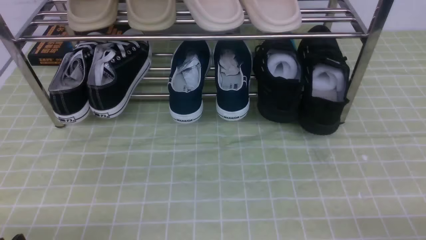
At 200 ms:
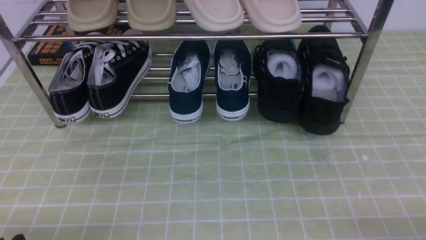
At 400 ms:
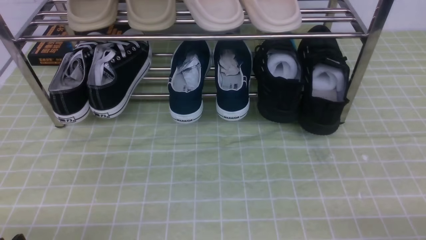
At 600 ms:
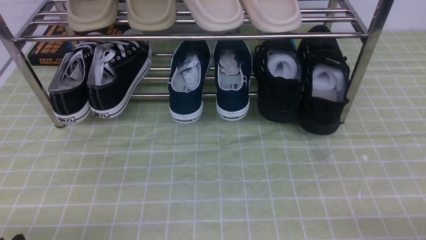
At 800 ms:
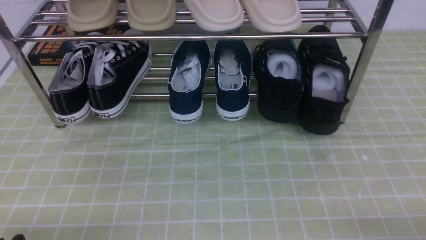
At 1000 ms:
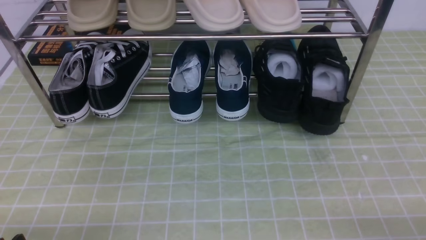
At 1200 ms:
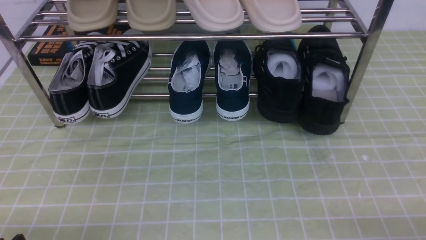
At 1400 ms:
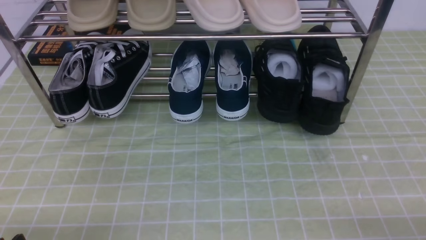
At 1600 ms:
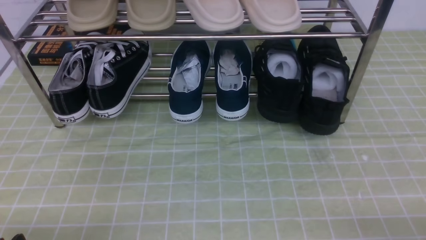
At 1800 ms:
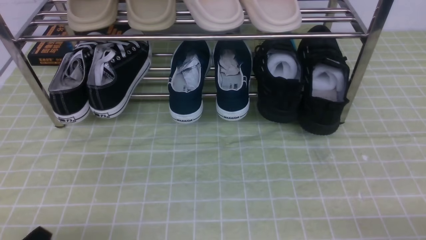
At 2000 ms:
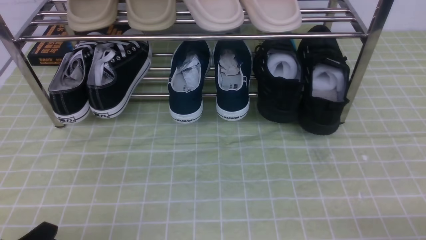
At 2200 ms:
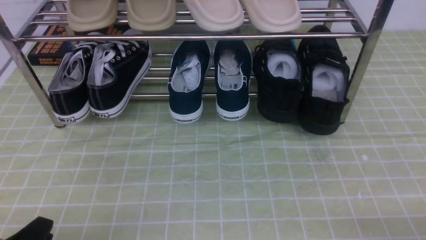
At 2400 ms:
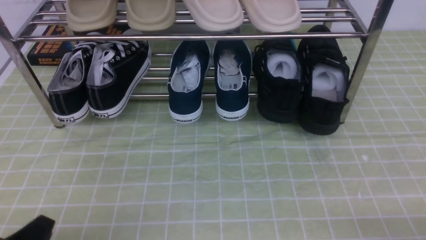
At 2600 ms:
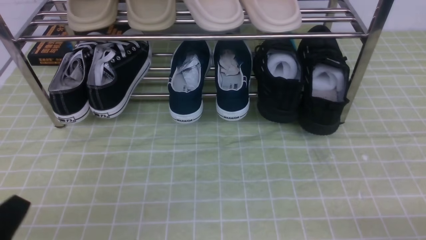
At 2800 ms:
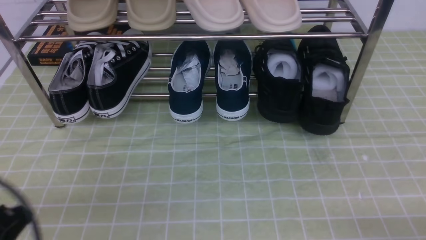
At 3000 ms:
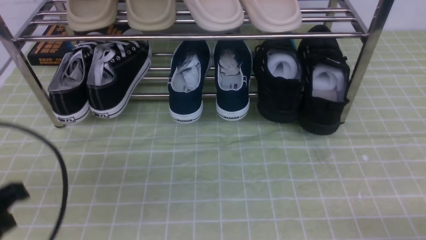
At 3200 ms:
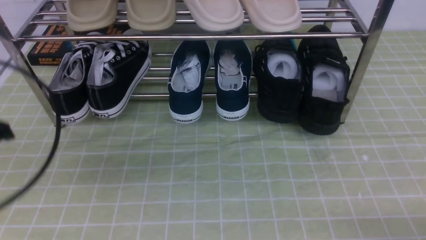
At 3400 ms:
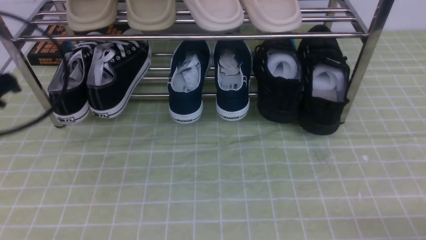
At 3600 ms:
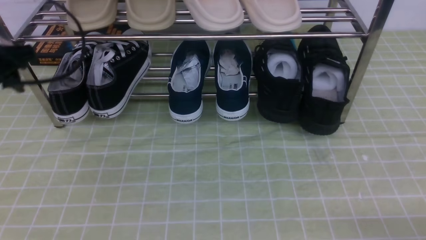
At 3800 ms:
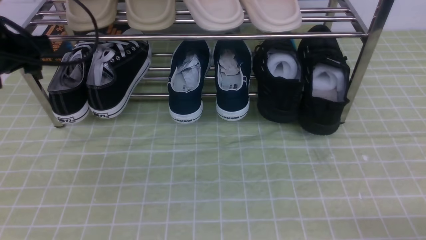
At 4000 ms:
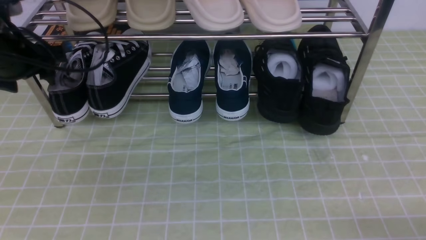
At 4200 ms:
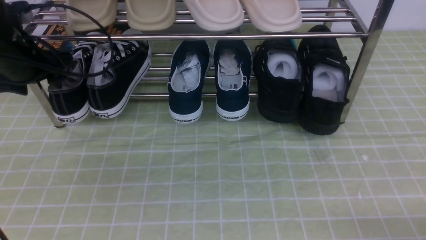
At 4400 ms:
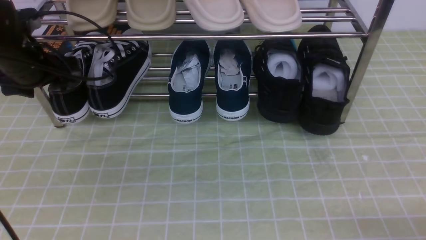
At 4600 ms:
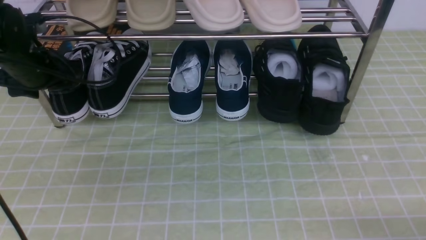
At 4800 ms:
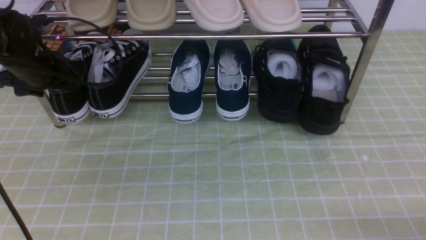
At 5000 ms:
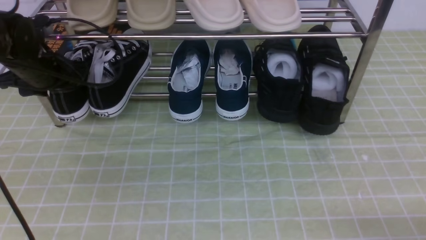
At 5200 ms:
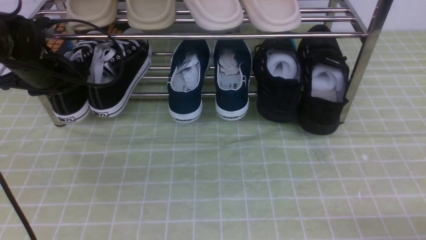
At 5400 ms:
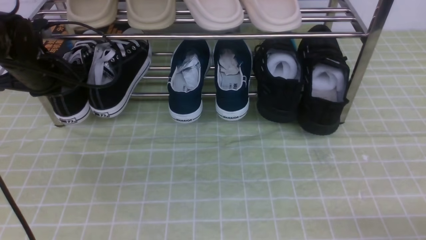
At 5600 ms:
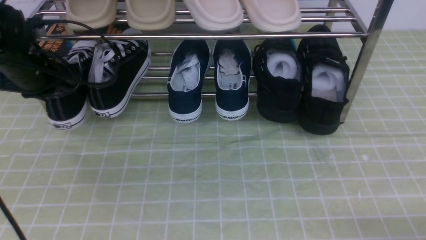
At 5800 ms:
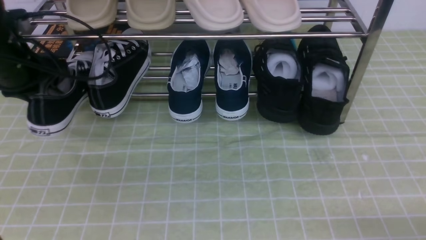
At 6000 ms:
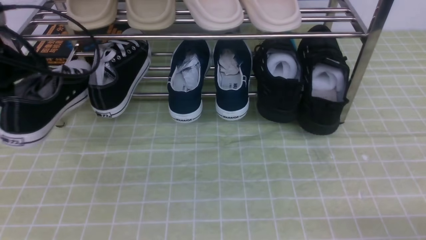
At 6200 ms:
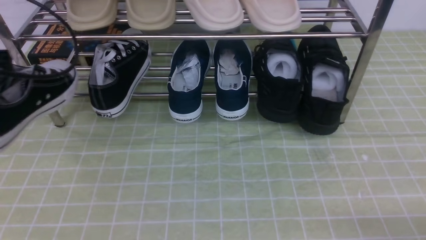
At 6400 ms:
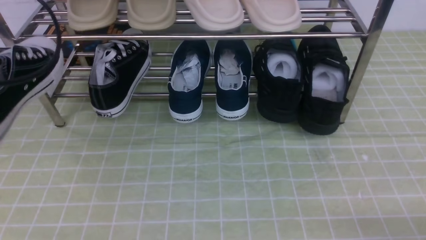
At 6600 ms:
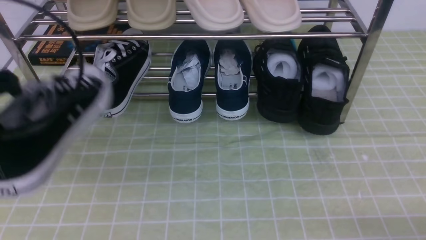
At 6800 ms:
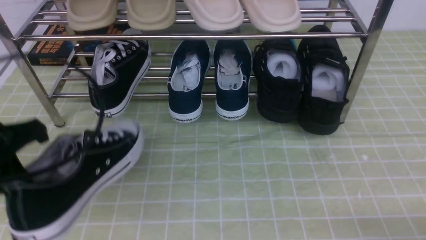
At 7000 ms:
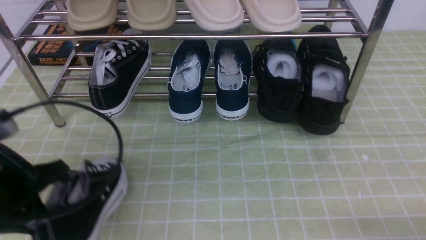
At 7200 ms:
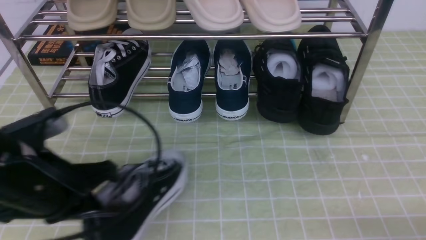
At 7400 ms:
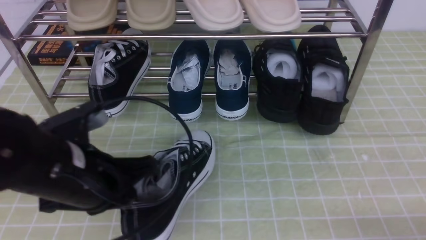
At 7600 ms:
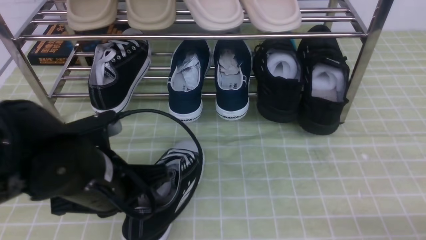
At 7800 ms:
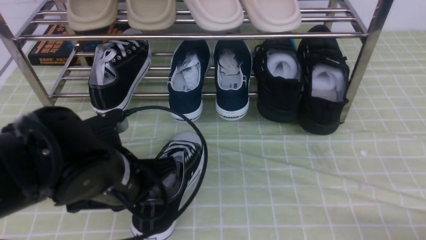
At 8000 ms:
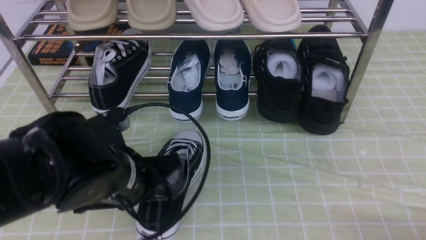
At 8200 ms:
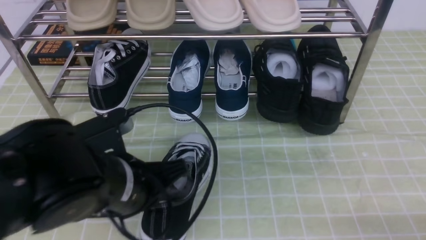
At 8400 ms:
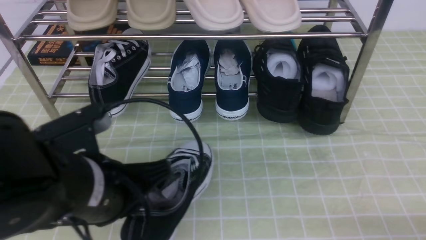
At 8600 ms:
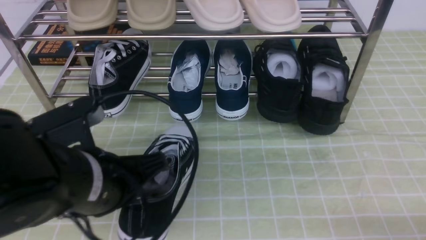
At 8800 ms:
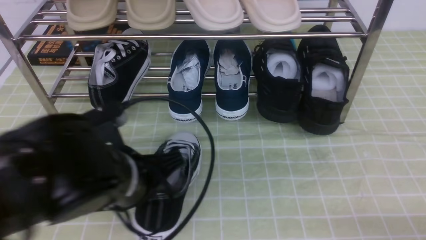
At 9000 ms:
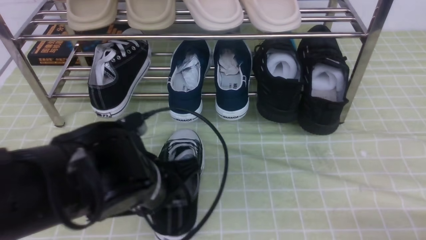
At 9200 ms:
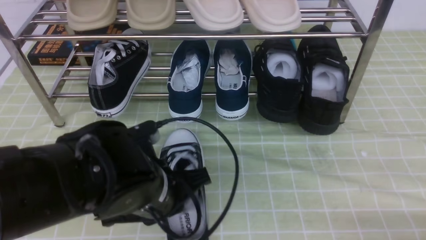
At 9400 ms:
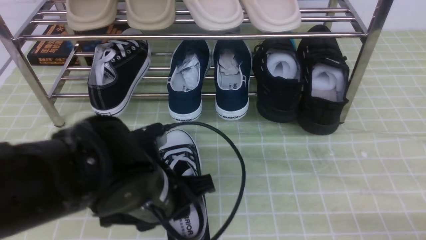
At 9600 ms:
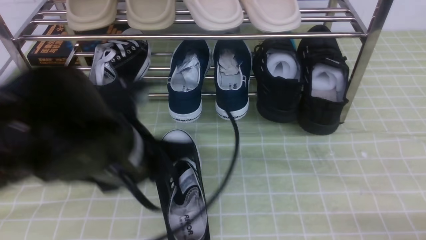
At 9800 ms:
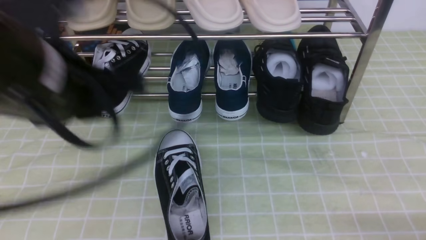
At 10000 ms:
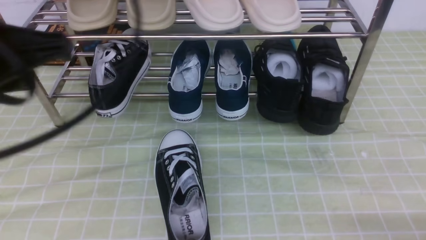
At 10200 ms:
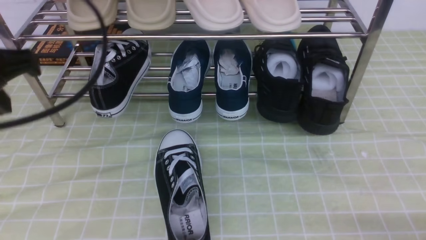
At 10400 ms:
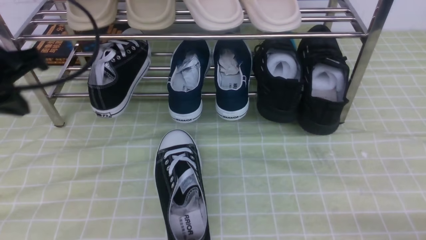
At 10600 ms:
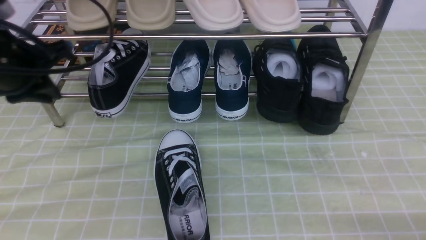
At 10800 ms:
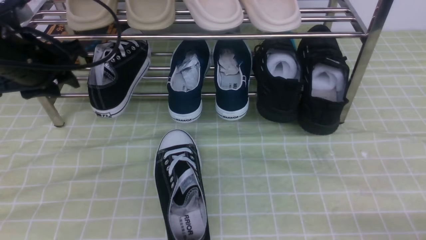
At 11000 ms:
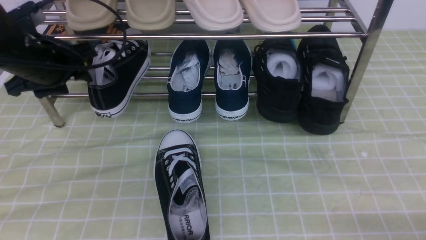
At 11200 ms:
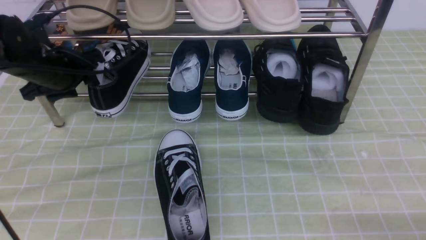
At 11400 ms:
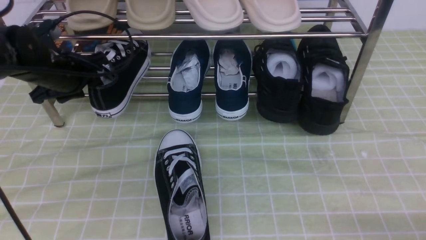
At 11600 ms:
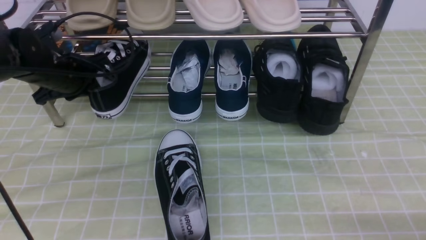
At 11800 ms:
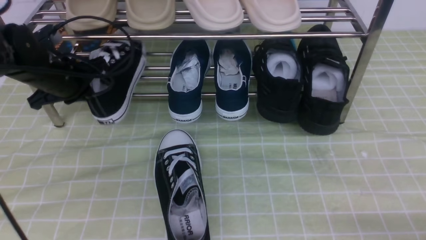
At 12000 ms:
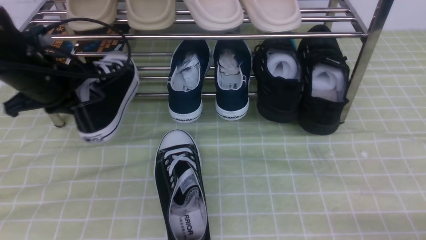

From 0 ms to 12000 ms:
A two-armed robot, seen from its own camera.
Step, from 0 ms to 5000 ms: use the left arm to clamp a shoe on the left side of the shoe rack.
Step, from 5200 ms to 9400 ms: Use your left arm to remove the clamped shoe from the shoe rack and put it down.
Step, from 9600 ms to 11800 ms: use the left arm to clamp a shoe on the left side of the shoe rack.
From 1600 ms to 3000 ms: The left gripper goes about 15 cm upward and forward, and closes up.
From 3000 ms to 4400 ms: The left gripper moves forward, roughly 25 cm, and opens its fingers.
From 4400 ms to 6000 ms: The left gripper is displaced backward and upward by approximately 10 cm, and closes.
From 6000 ms to 7600 ms: The left gripper heads to the right, backward and downward, covering approximately 20 cm.
From 7600 ms to 9000 ms: The left gripper shifts by about 5 cm.
From 9000 ms to 10400 ms: The left gripper shifts roughly 20 cm to the left, upward and forward, and opens, then closes again.
From 10400 ms to 12000 ms: The left gripper heads forward and downward, covering about 10 cm, and opens, then closes once more.

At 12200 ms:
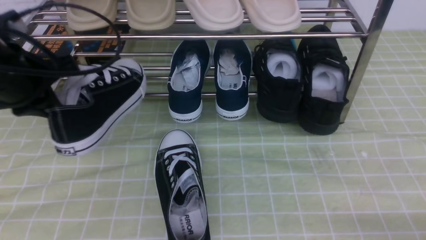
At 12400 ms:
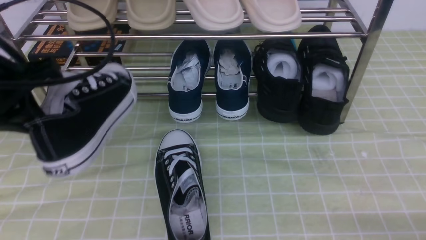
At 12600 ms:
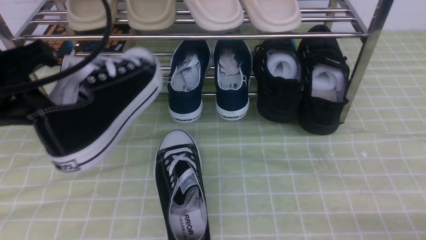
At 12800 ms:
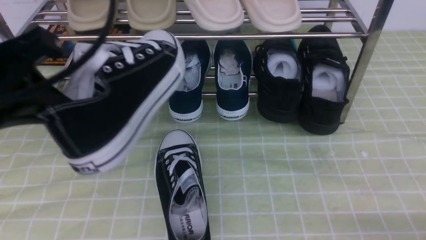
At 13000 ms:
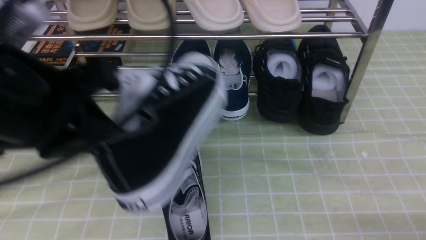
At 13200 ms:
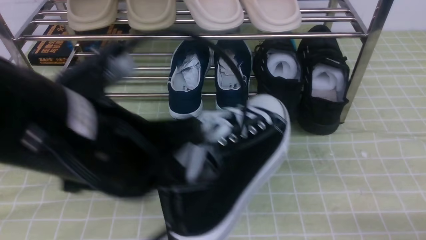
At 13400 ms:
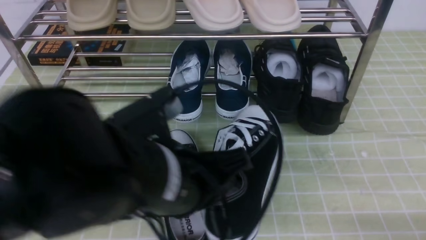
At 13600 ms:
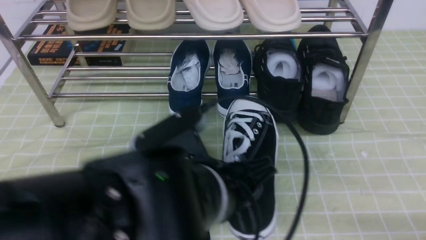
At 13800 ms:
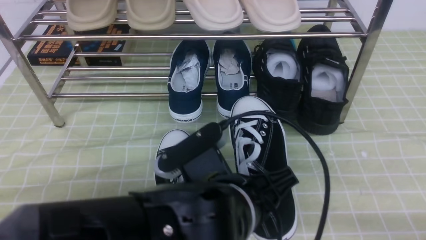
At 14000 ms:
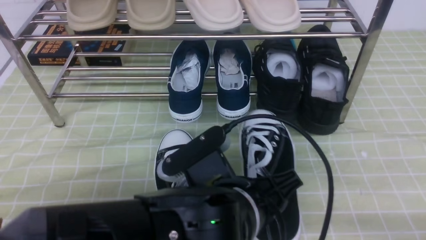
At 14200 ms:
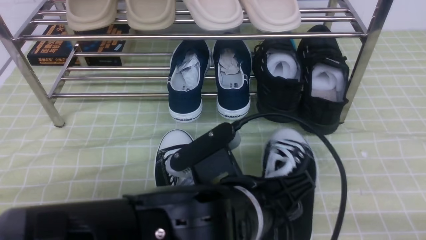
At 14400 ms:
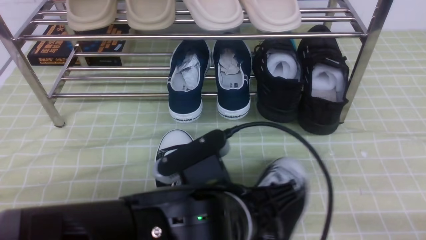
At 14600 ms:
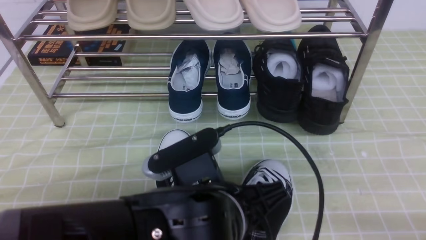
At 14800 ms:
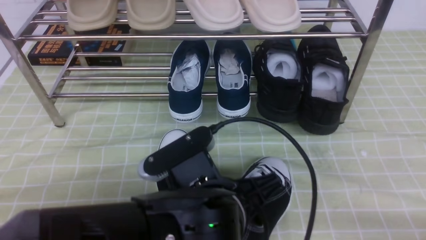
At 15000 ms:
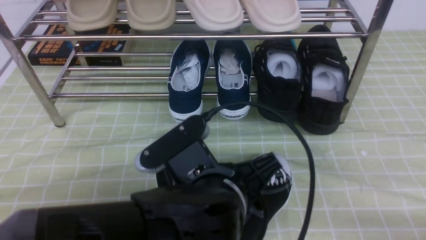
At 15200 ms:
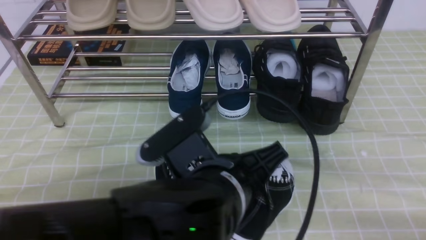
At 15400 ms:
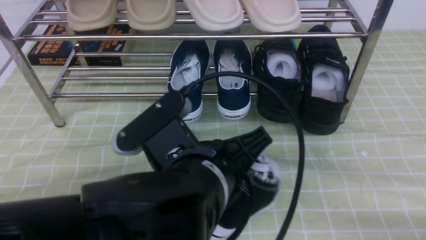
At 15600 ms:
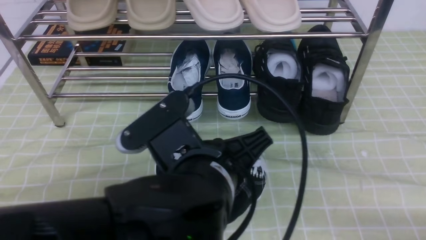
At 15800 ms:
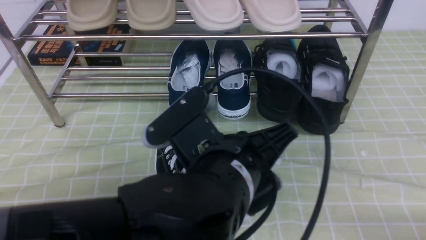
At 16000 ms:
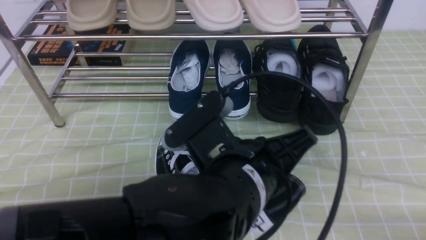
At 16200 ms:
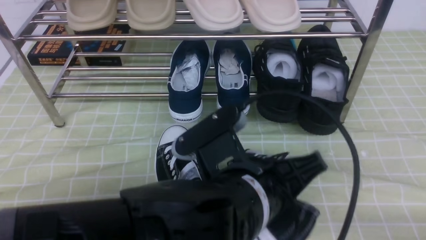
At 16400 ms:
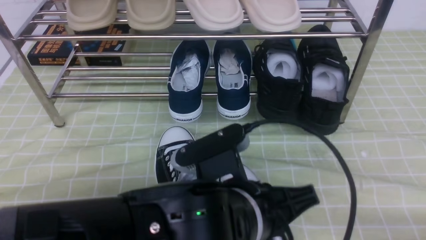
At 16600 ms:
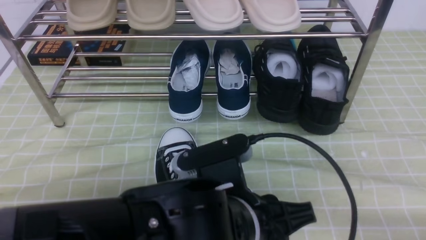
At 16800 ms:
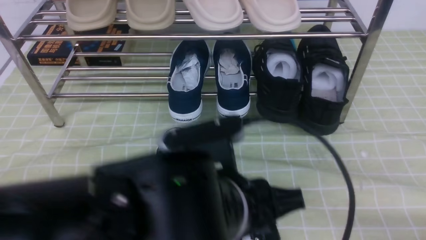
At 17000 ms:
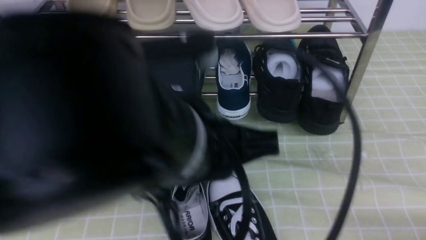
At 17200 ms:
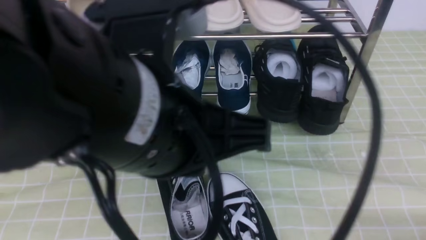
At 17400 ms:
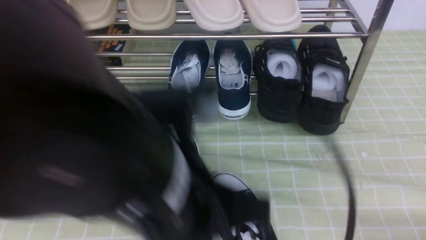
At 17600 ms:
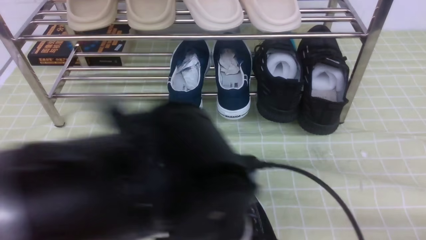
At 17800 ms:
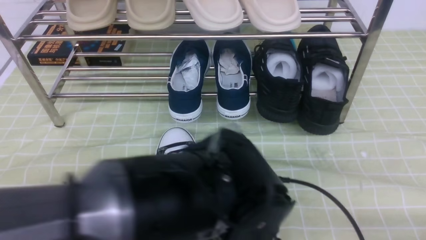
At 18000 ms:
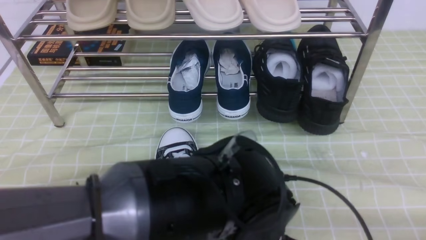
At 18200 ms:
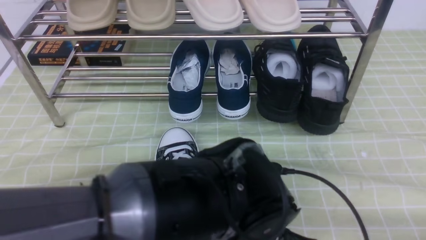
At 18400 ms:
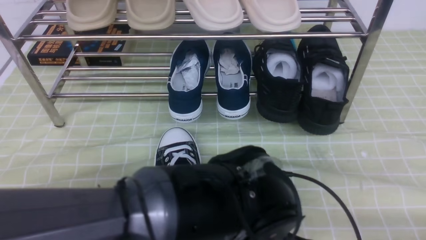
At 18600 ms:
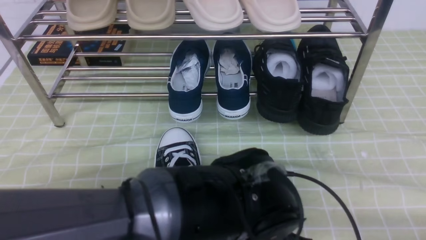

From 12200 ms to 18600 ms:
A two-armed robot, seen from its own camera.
Step, from 12200 ms to 16800 ms: Use your left arm to remove the clamped shoe from the shoe rack and put it down.
From 12200 ms to 13800 ms: The left gripper shifts some 30 cm to the right and backward.
From 13800 ms to 15400 ms: The grippers make only small movements.
From 15400 ms to 17000 ms: The left gripper heads upward, covering approximately 10 cm.
From 17000 ms to 18600 ms: The left gripper shifts some 15 cm downward and to the right, and opens, then closes once more.
